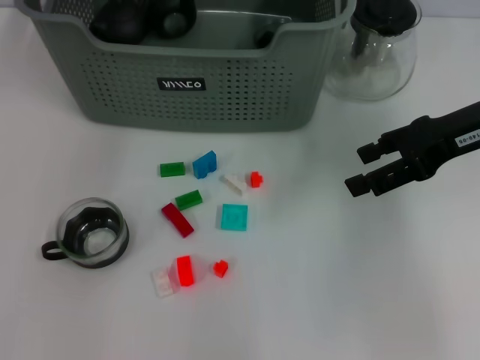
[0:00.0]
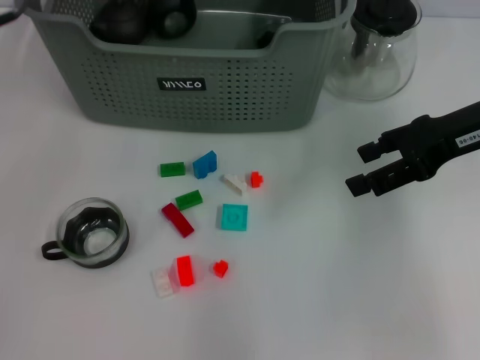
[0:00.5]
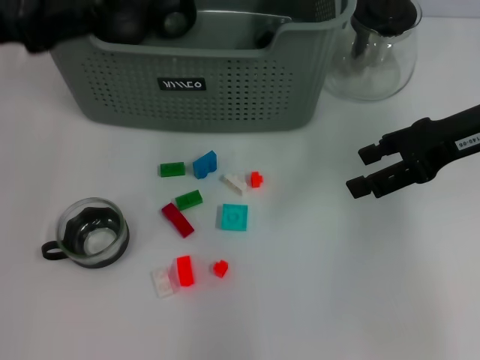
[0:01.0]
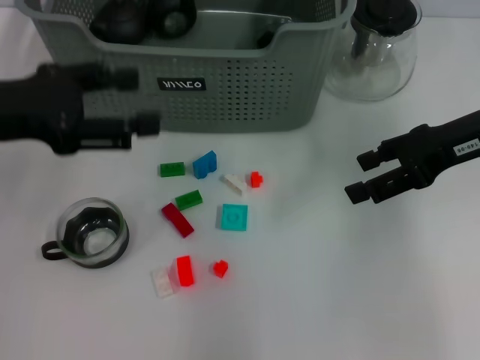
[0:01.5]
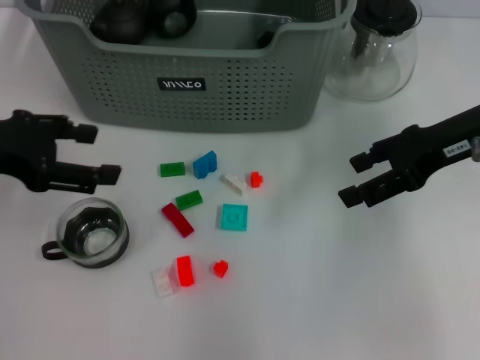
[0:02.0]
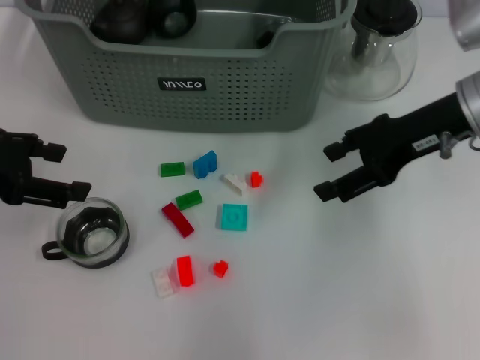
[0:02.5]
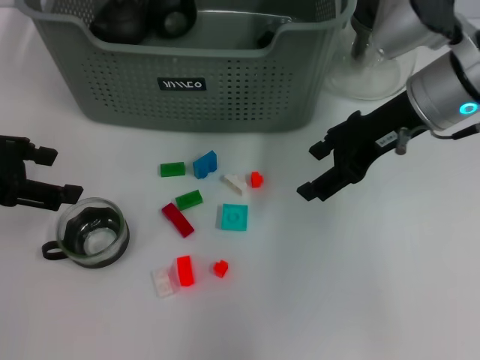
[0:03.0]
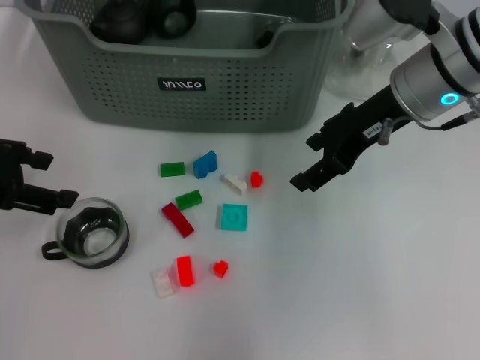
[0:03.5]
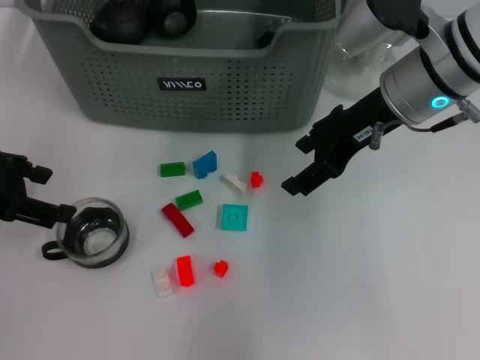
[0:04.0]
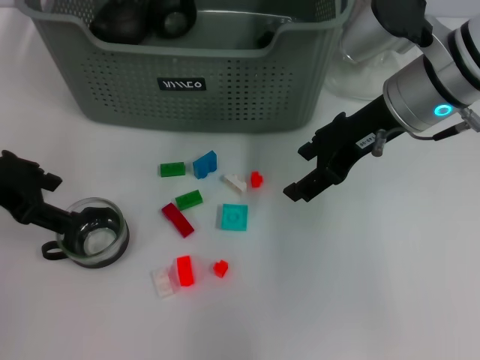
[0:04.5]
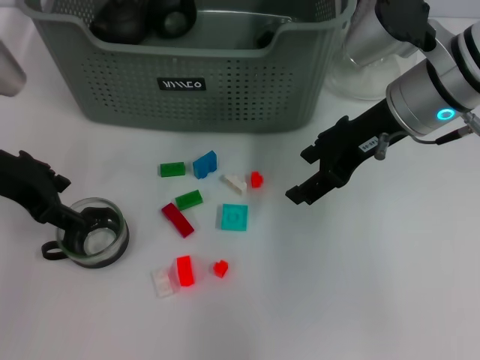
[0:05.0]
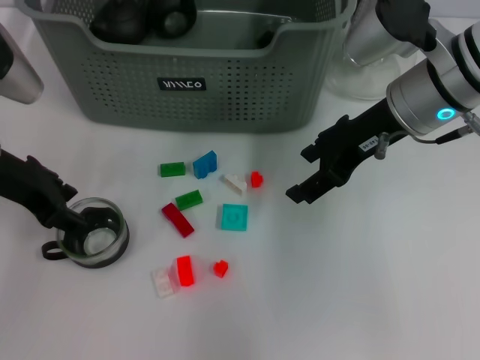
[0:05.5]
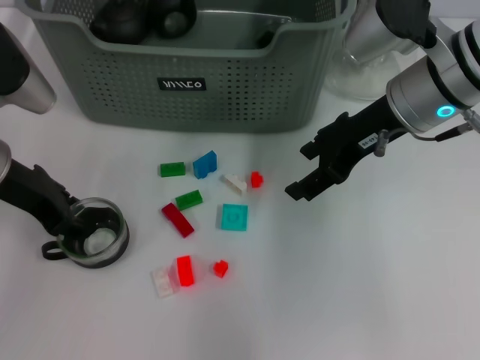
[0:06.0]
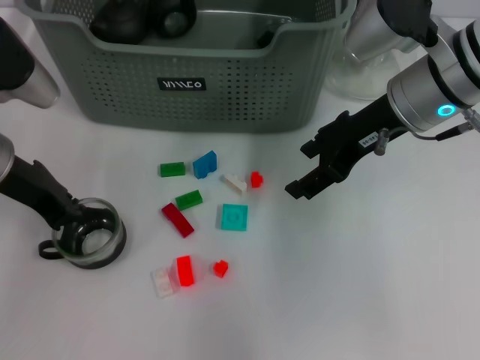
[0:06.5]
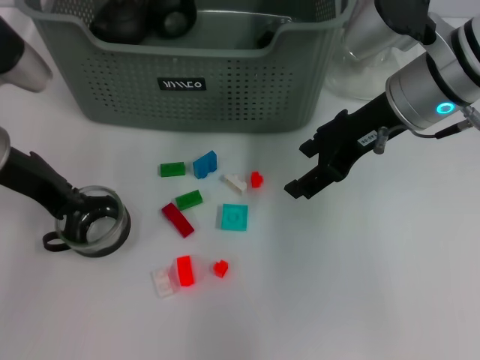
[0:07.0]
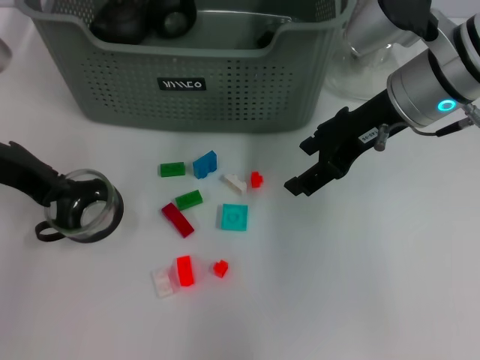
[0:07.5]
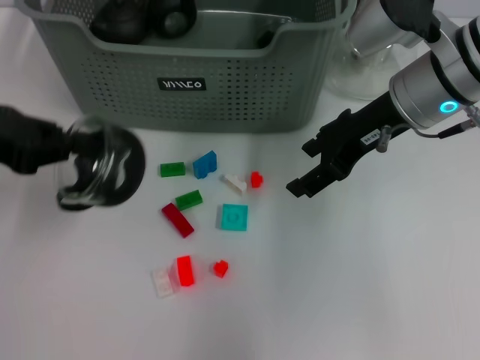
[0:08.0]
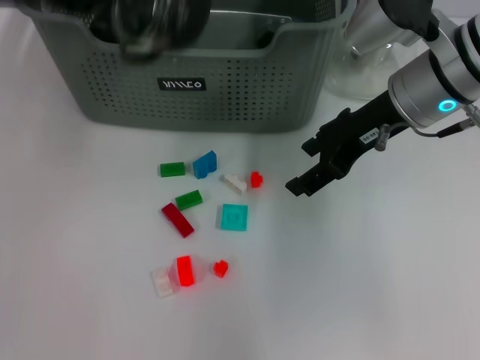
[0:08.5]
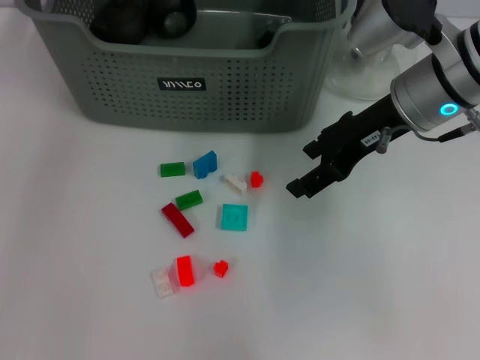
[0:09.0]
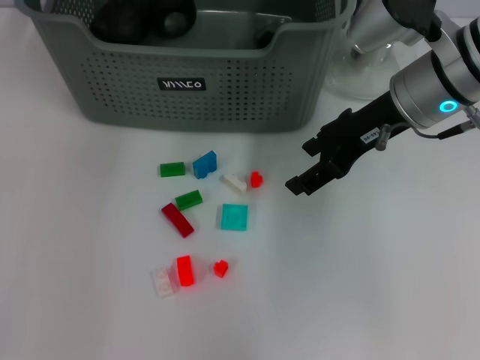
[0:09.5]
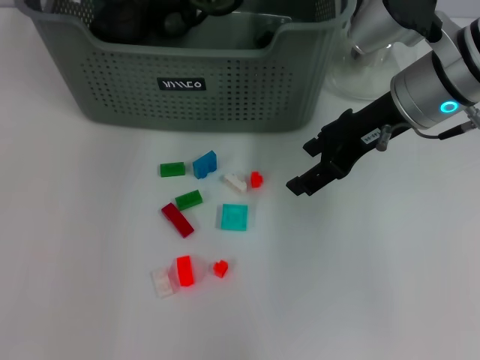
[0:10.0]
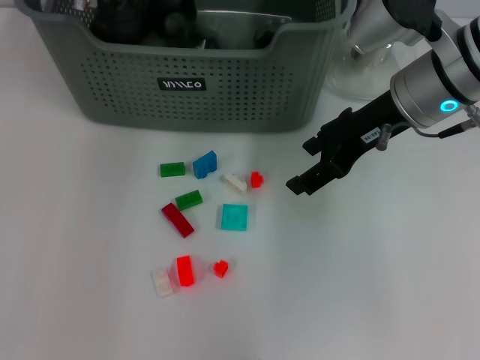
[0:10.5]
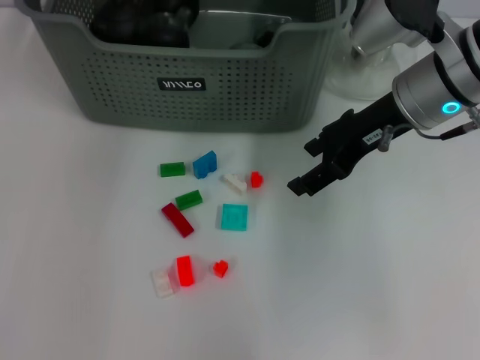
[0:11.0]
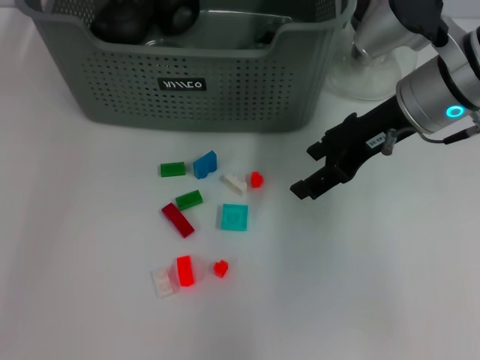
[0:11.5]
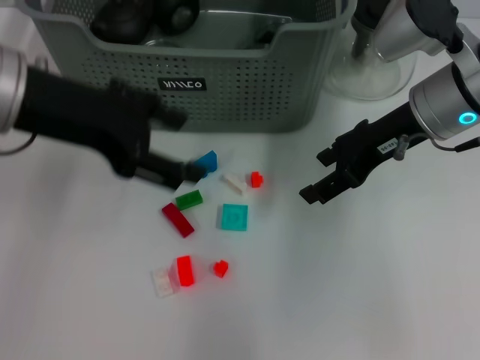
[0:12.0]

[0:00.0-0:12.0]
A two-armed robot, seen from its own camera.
Task of the whole recording: pick up the teacup on the table and place it into the storage bin, pick up the block on the table and place it into the storage bin.
Step, 0:00.0 to 0:06.5: Grasp the cup with left gripper.
Step, 0:07.0 to 0:11.0: Place the cup in the storage box with left gripper.
0:00.0 to 0:02.0: The left gripper shifts roughly 20 cm backward, to the left and downward.
0:02.0 to 0:04.0: The right gripper moves to the left, approximately 10 cm.
0:04.0 to 0:06.0: The left gripper moves to the right, about 5 cm.
0:06.0 to 0:08.0: The left gripper travels upward by approximately 5 cm, and closes its fingers.
0:08.0 to 0:10.0: The left gripper is displaced forward and to the right by roughly 25 cm.
0:10.0 to 0:12.0: The left gripper is displaced backward by some 20 cm, and opens its fingers.

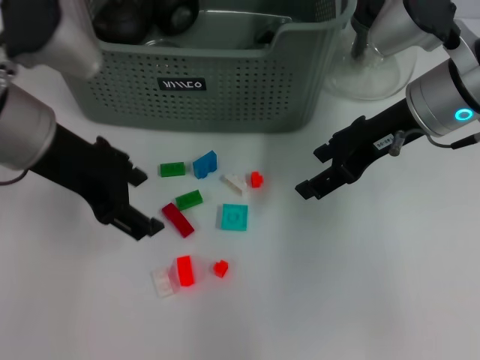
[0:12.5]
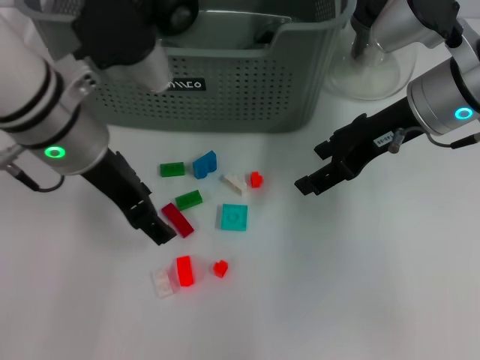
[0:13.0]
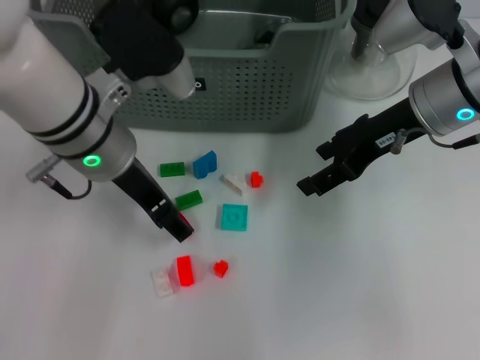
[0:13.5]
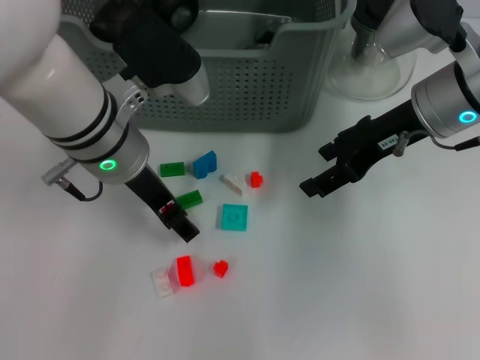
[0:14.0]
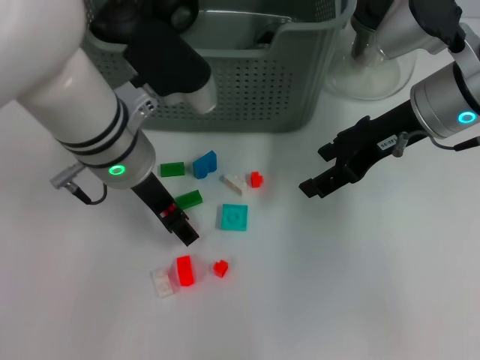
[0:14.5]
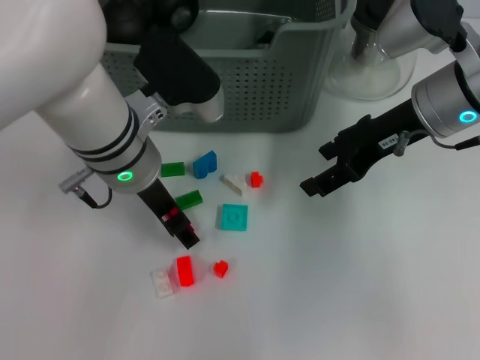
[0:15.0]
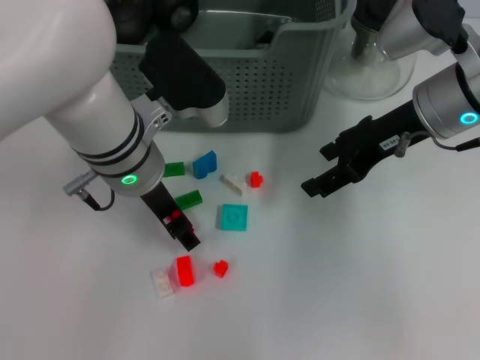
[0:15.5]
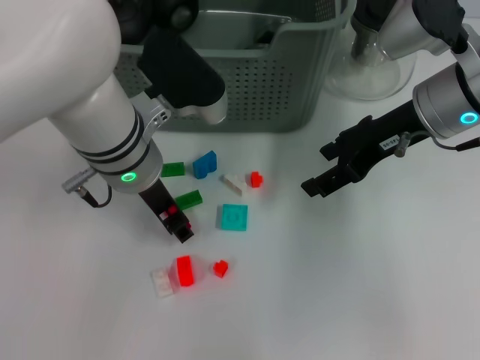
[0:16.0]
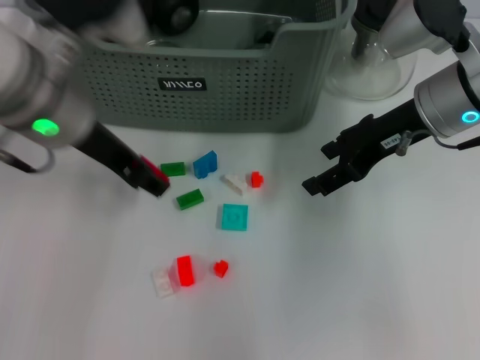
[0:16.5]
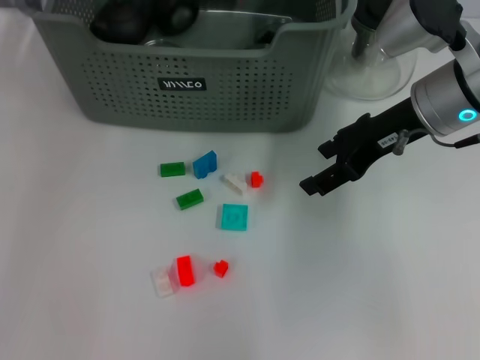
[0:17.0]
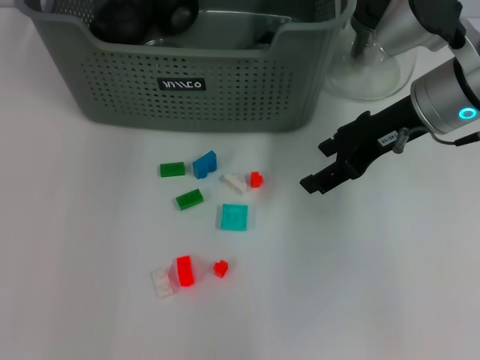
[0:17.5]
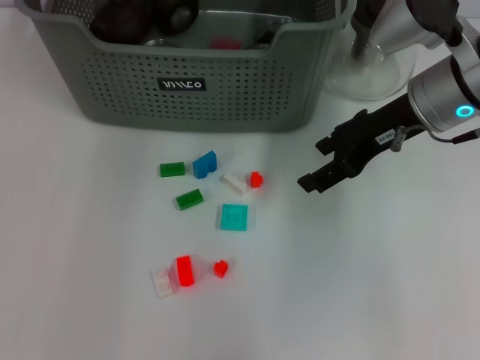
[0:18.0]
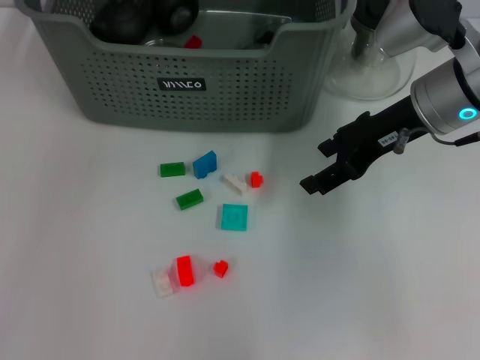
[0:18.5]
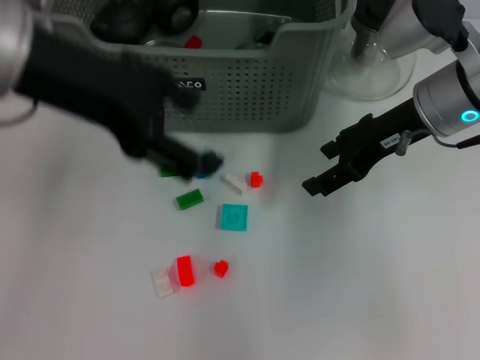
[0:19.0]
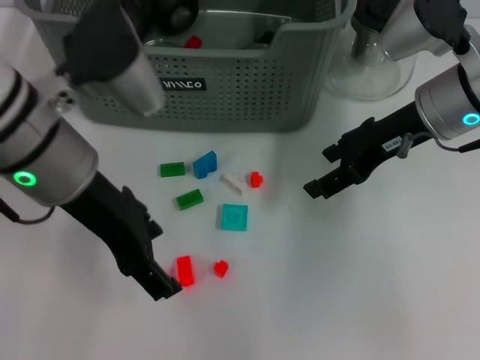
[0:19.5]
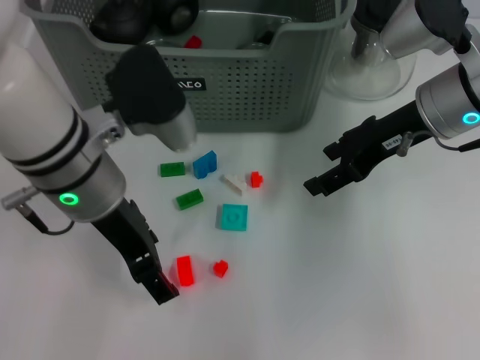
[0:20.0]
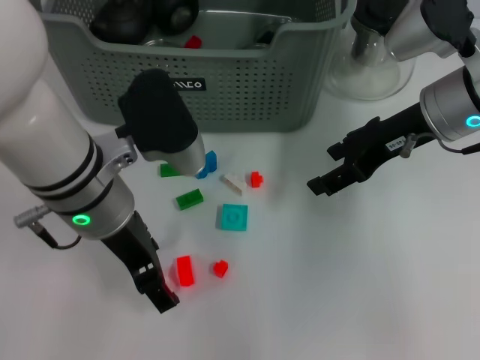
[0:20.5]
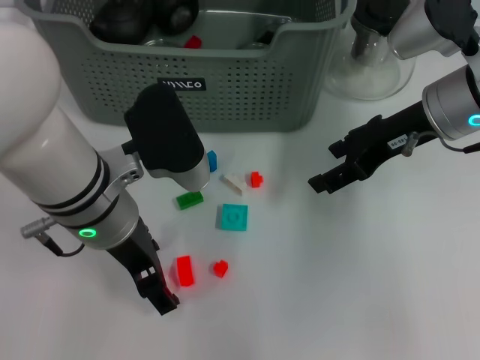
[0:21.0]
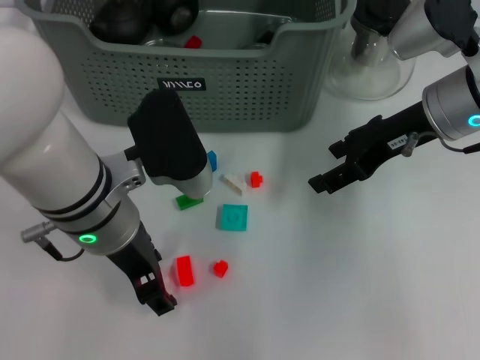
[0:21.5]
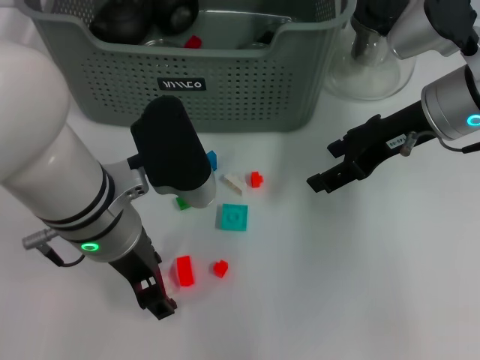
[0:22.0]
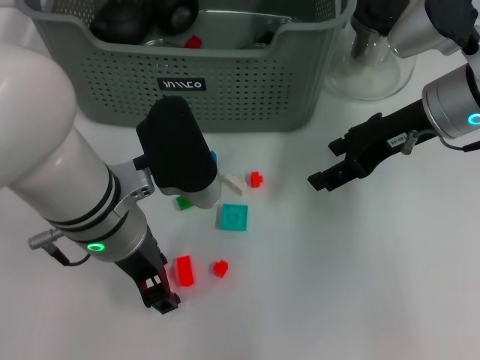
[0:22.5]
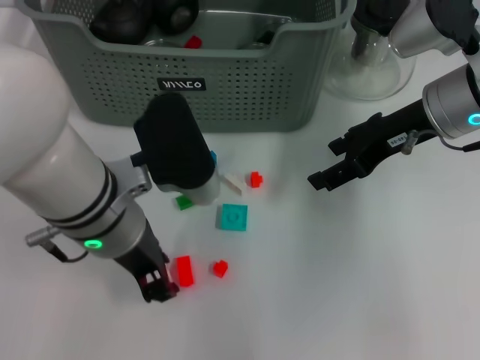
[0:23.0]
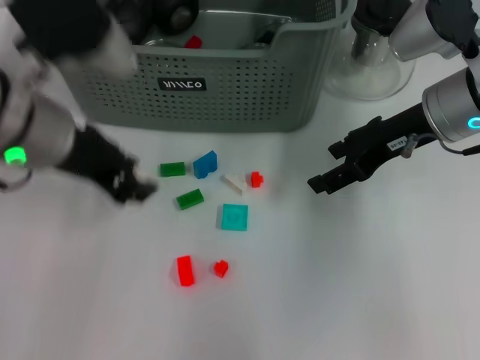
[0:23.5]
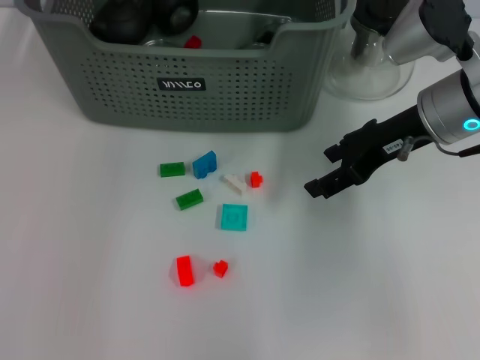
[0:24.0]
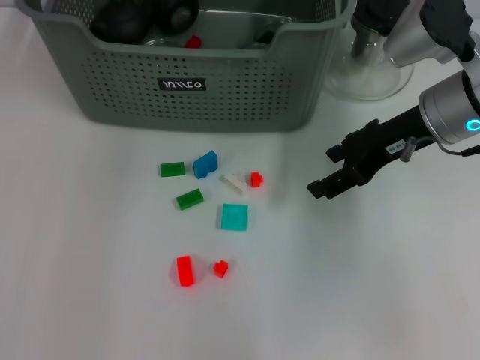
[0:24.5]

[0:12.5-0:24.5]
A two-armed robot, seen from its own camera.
Task of the whole recording: pick up the teacup on the table and place it into the storage bin, pick up the block on the table and place it into the storage bin.
Step, 0:12.5 to 0:16.0: Grasp the red block with left gripper.
Step, 0:16.5 to 0:18.0: Place the red block in the storage box with left gripper.
Step, 0:18.5 to 0:22.5: Grasp the white block with left gripper.
0:12.5 to 0:14.5: The left gripper travels to the right and downward by approximately 10 cm.
0:14.5 to 0:16.5: The left gripper moves upward and to the left, roughly 10 cm.
0:16.5 to 0:18.5: The left gripper travels upward and forward by some 15 cm.
0:18.5 to 0:20.5: The left gripper moves downward and backward, roughly 20 cm.
0:20.5 to 0:22.5: The grippers stay close to where they were, moving slightly.
0:22.5 to 0:24.5: The left gripper goes roughly 20 cm upward and forward.

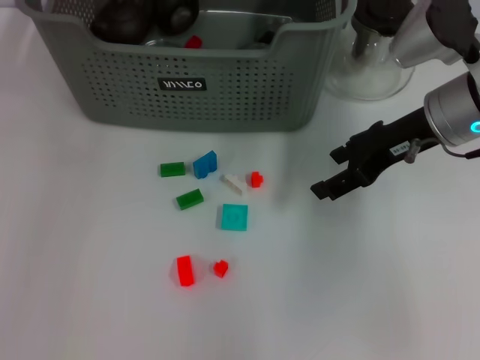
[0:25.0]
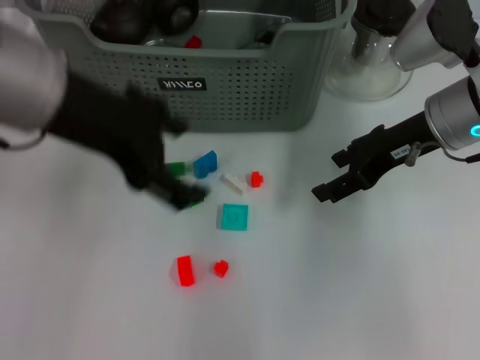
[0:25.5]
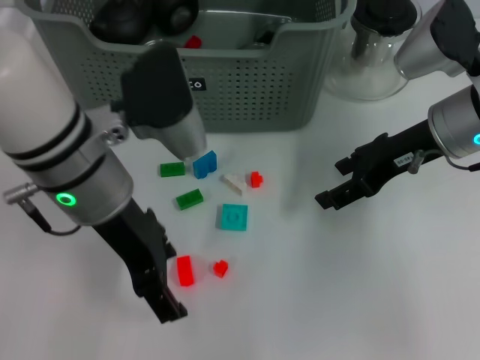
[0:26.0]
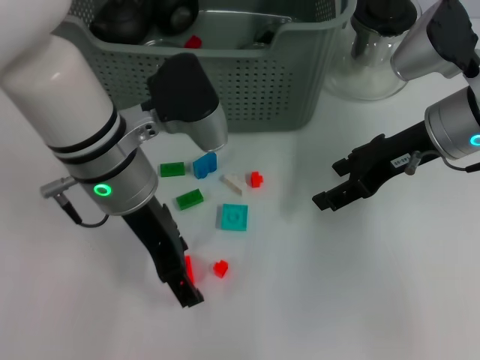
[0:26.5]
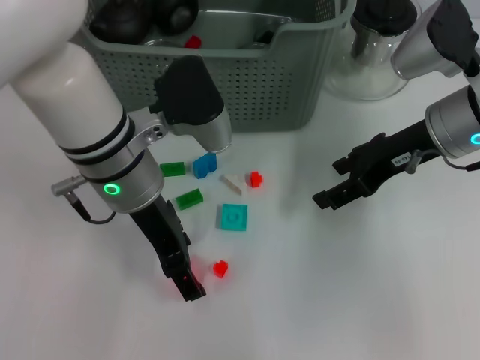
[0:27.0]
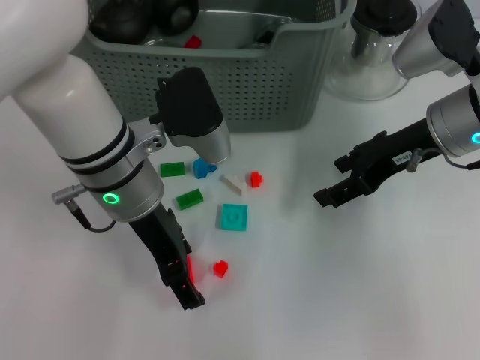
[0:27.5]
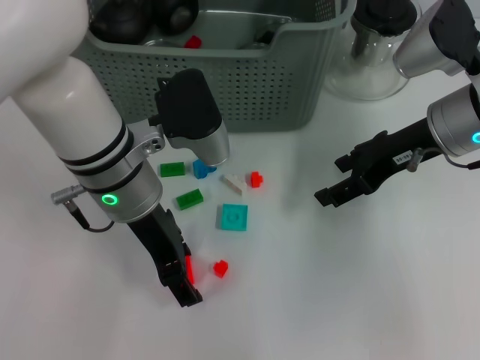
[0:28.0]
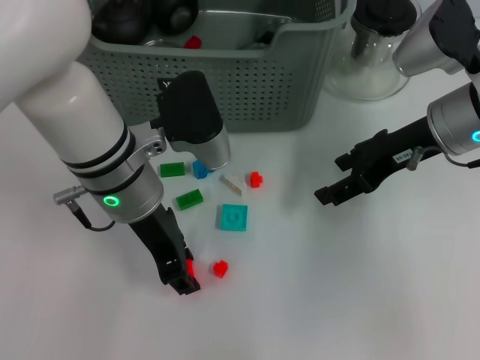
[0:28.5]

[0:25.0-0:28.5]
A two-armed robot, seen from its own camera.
Task of the whole recording: pick up the teacup on the table and place it into the storage bin, pick up the block on the table and place it into the storage bin.
Step, 0:25.0 to 0:28.5: Grasp the orange block with left gripper.
0:25.0 to 0:27.0: The left gripper is displaced downward by some 20 cm.
0:27.0 to 0:28.5: The two grippers keep their place.
